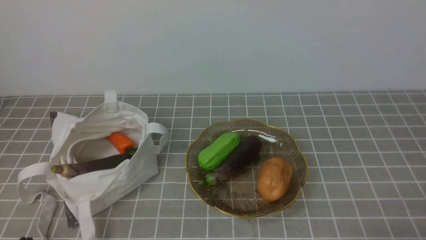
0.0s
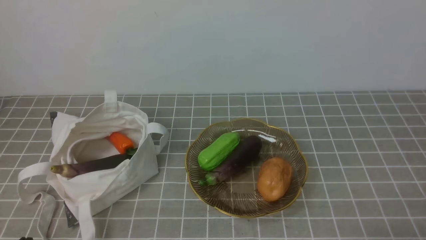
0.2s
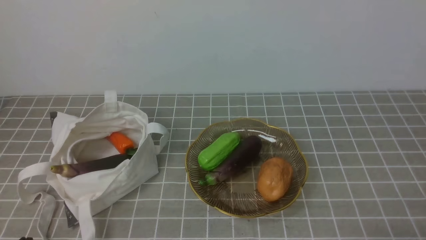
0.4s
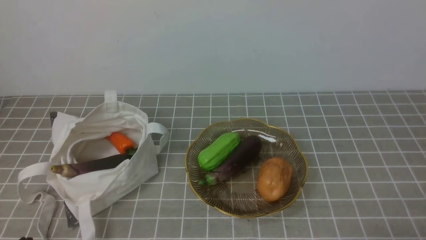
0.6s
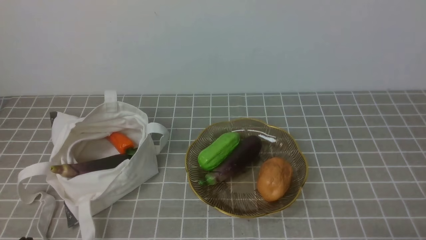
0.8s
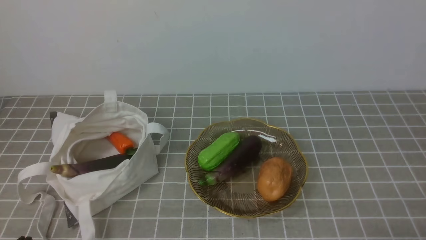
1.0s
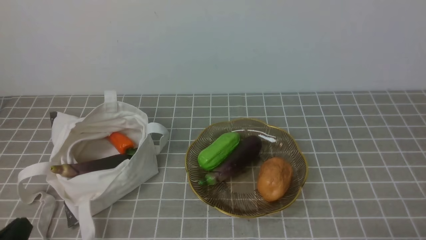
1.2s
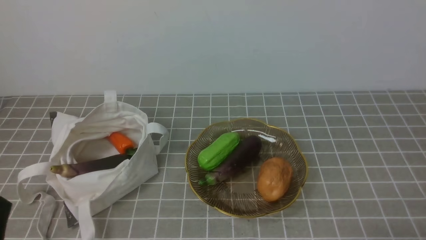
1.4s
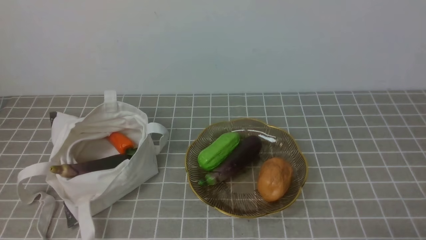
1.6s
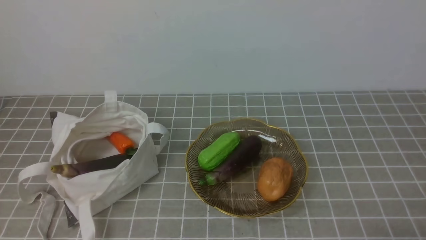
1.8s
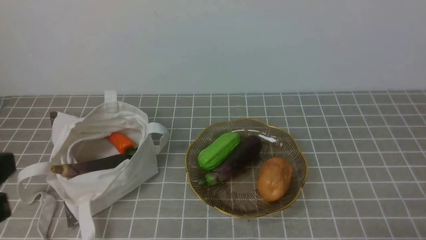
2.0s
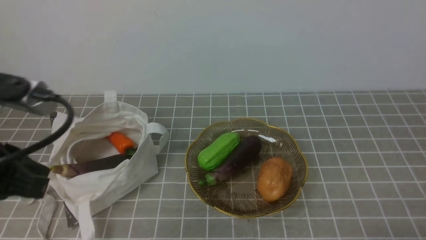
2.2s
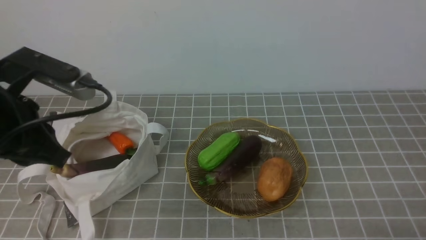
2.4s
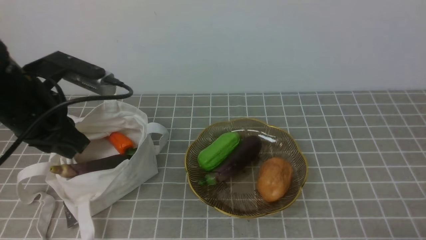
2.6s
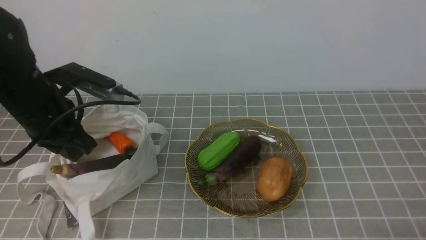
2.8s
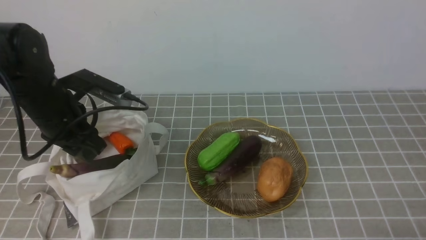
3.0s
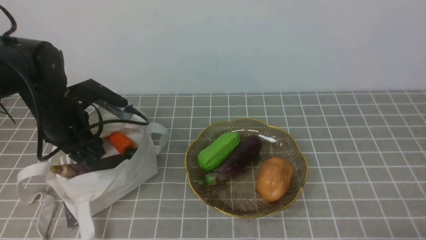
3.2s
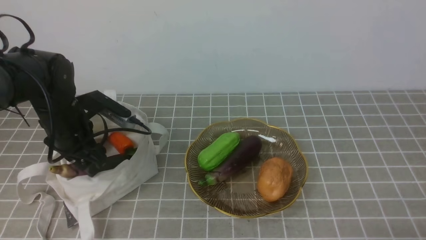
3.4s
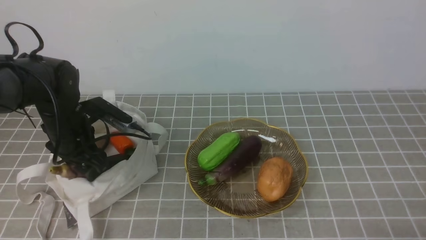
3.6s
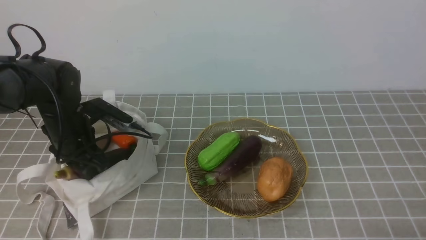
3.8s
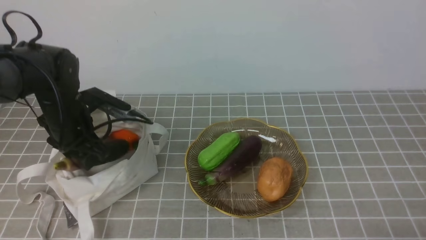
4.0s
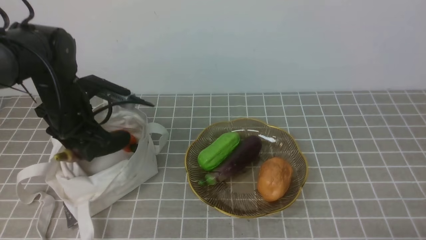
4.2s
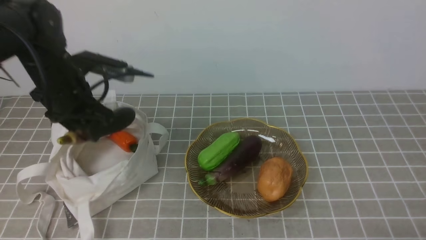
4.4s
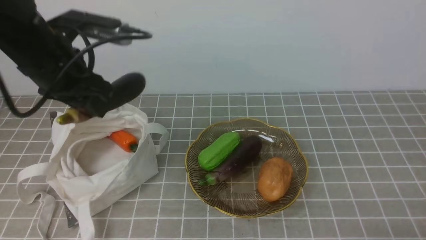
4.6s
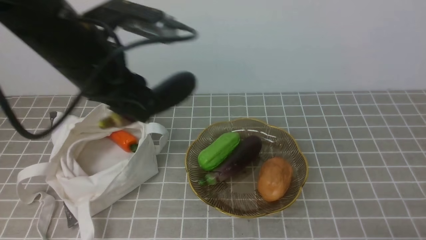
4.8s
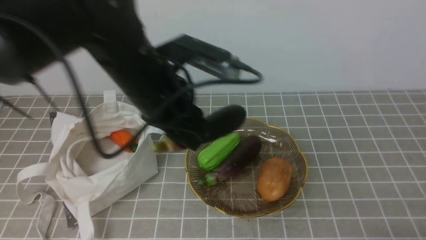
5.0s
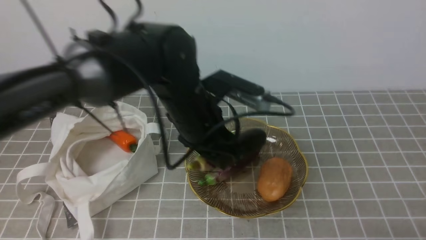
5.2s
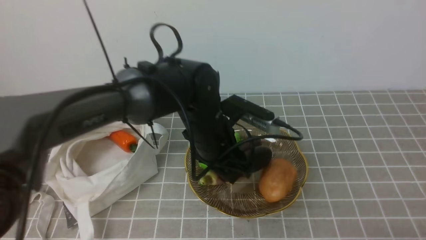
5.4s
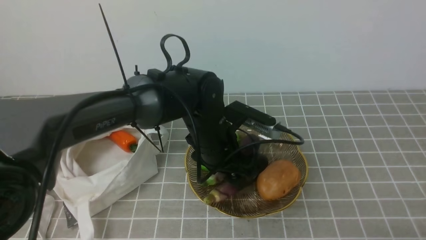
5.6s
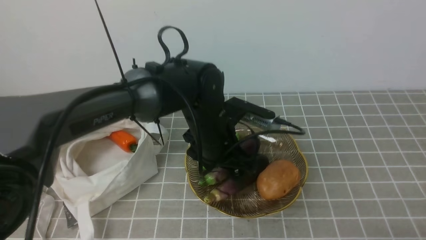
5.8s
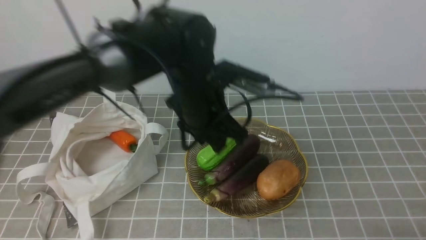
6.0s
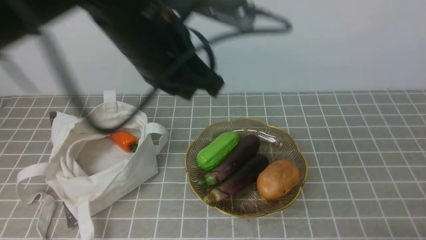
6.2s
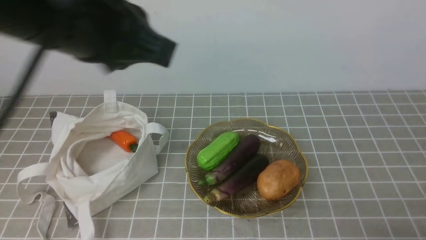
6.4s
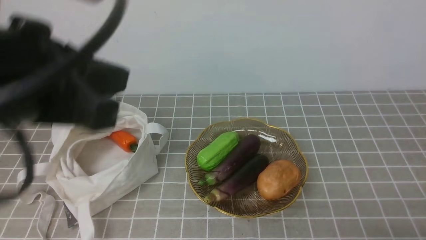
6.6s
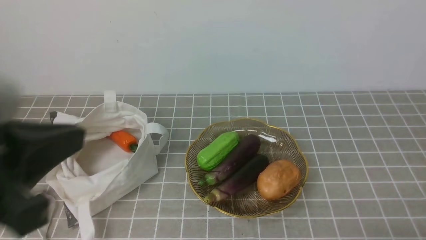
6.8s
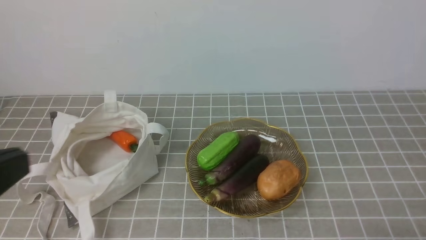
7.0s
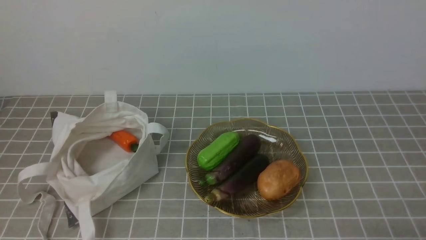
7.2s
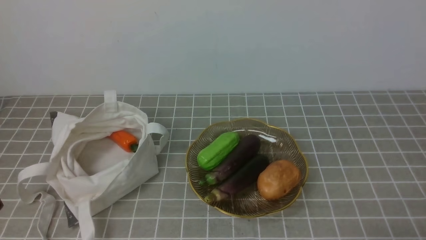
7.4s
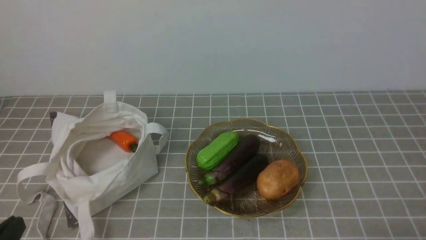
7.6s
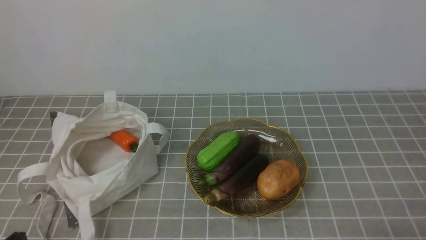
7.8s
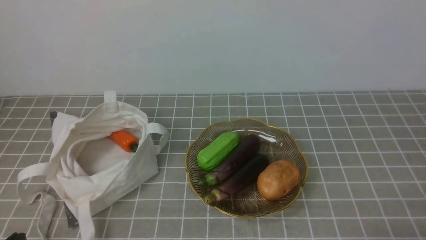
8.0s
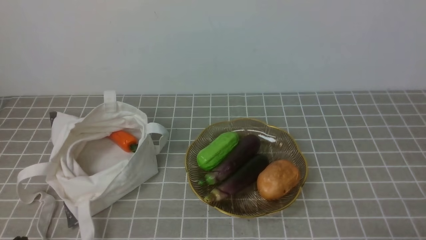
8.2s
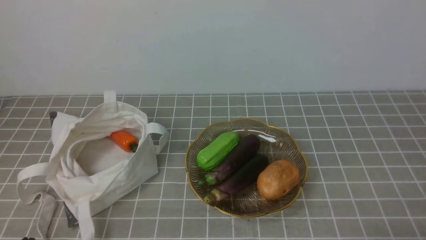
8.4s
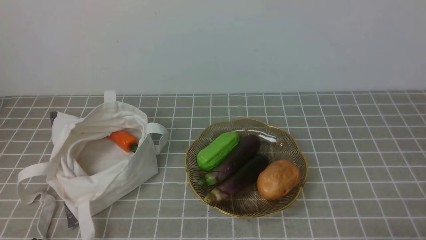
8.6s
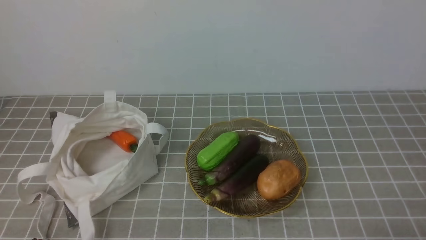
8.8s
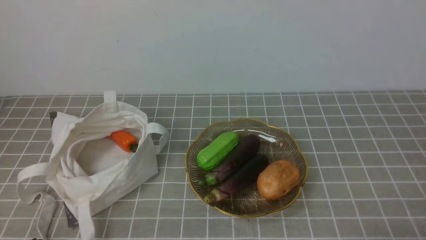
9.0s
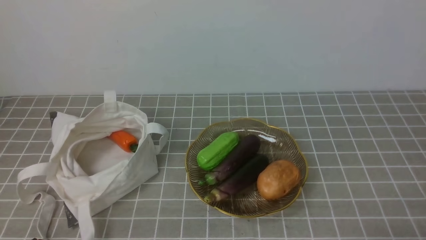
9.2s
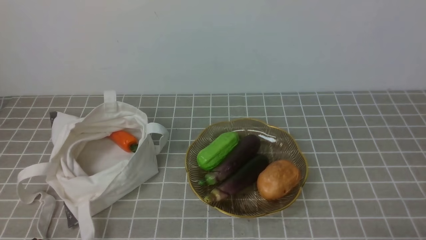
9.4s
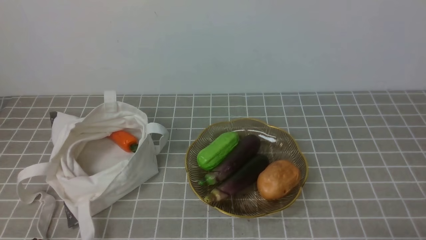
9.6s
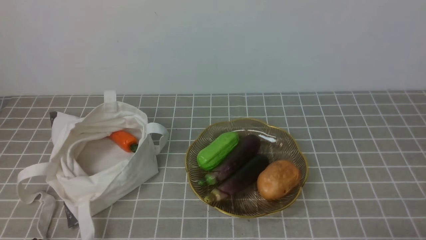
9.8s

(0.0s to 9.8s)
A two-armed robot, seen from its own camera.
Task of the whole recording: take vegetables from bag on grey coffee tablecloth place on plate.
Step, 0.0s - 3.6s: Grasp the eggplant with left gripper.
Step, 4.0s - 6.0s: Place the eggplant on the plate with left gripper.
1.4s - 2.8s: The left gripper is displaced forward by about 25 cm.
2.8s - 4.2s: The left gripper goes about 5 cm forward, and opens.
4.2s - 5.6s: The left gripper is displaced to the right by some 25 cm, and opens up.
5.6s - 7.0s: The left gripper shifts approximately 40 cm backward, to the left and upward, and closes up.
7.0s - 8.4s: The left gripper is displaced downward by roughly 20 cm.
8.4s - 9.8s: The two grippers keep their place.

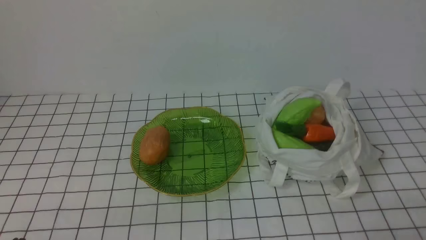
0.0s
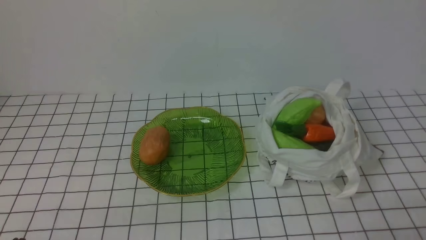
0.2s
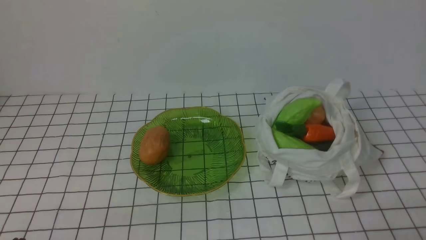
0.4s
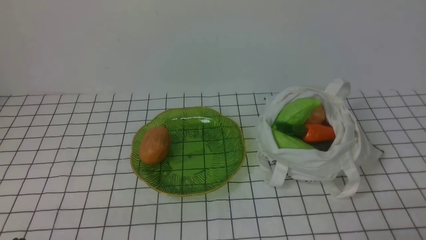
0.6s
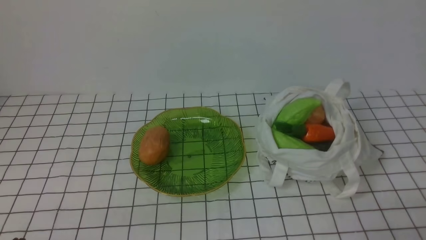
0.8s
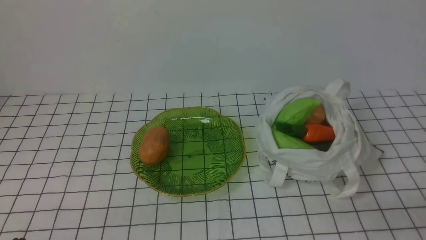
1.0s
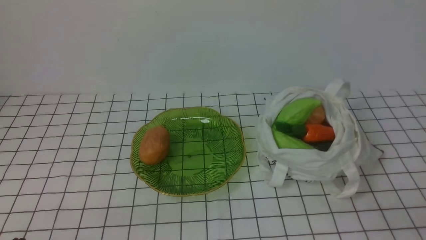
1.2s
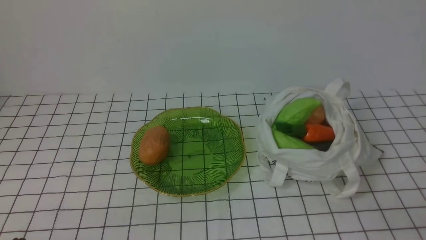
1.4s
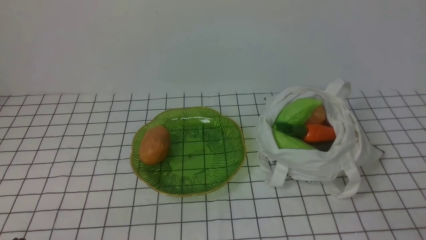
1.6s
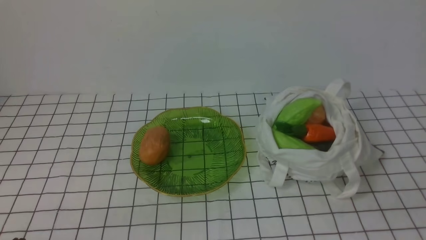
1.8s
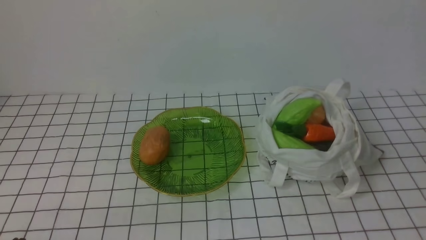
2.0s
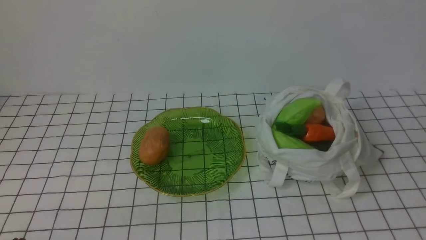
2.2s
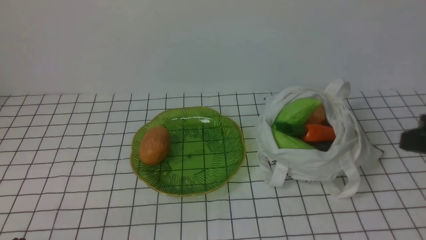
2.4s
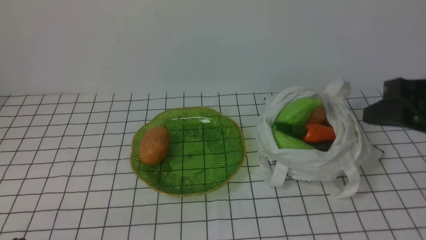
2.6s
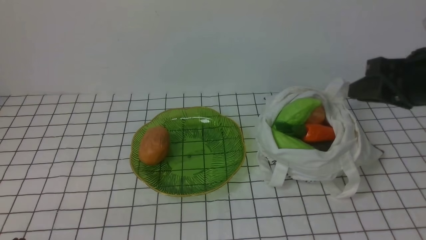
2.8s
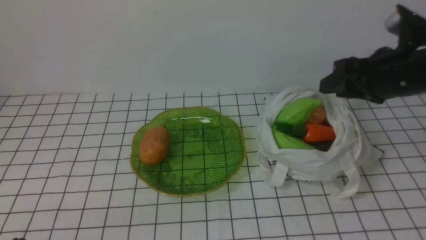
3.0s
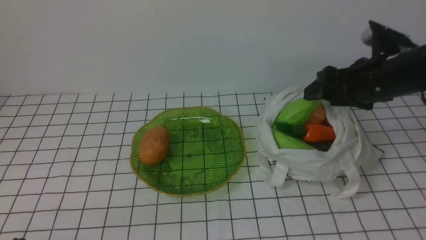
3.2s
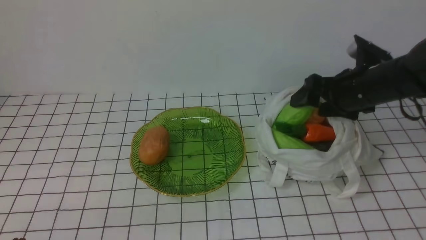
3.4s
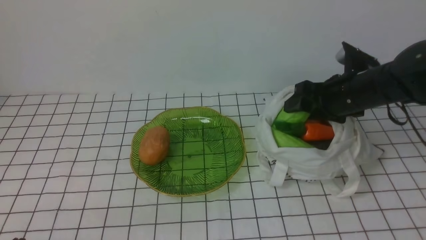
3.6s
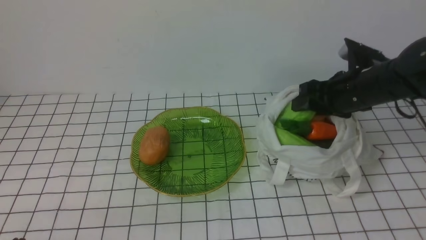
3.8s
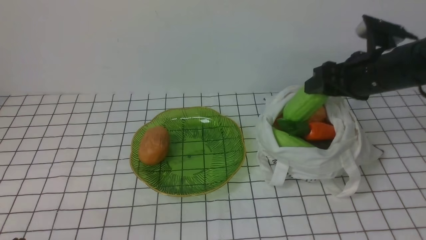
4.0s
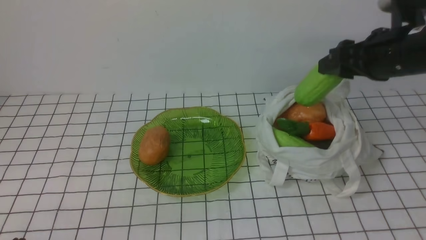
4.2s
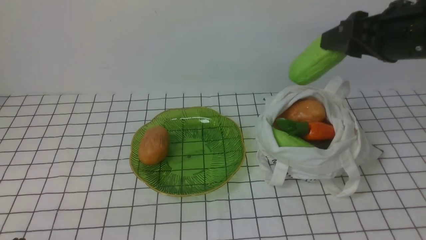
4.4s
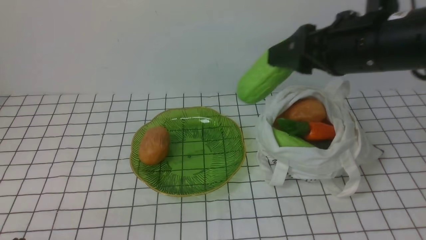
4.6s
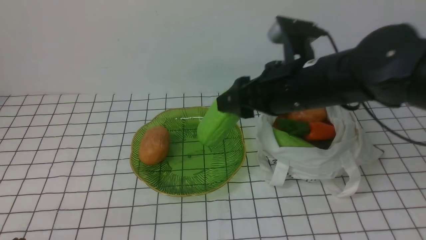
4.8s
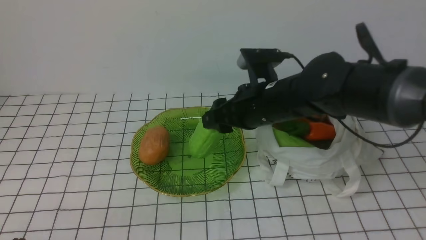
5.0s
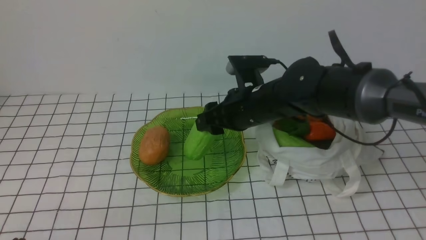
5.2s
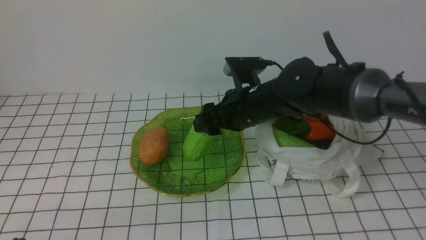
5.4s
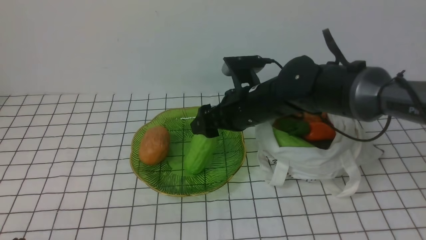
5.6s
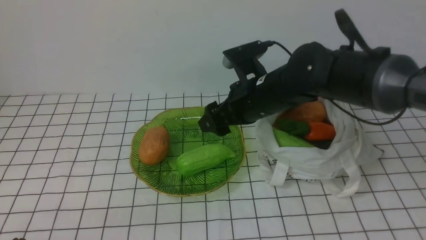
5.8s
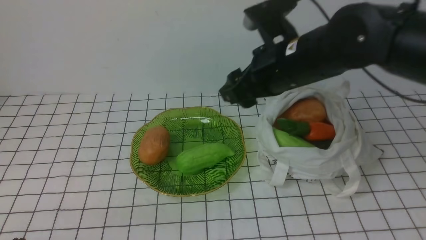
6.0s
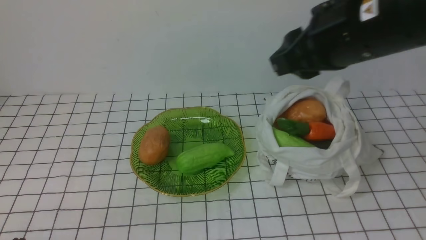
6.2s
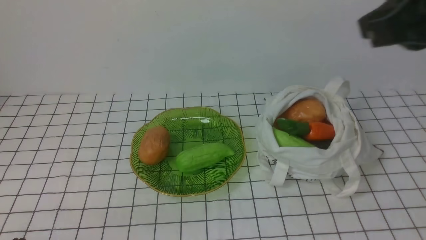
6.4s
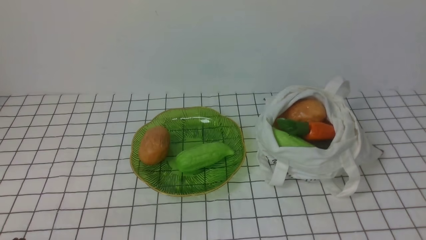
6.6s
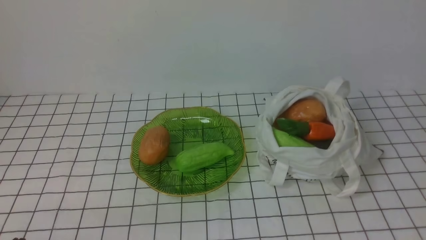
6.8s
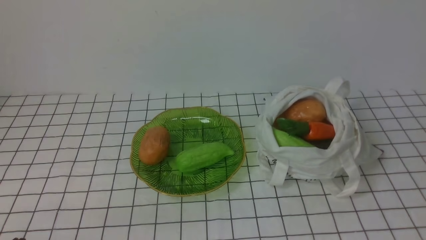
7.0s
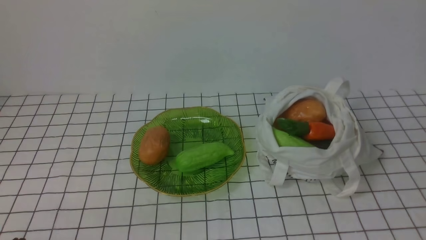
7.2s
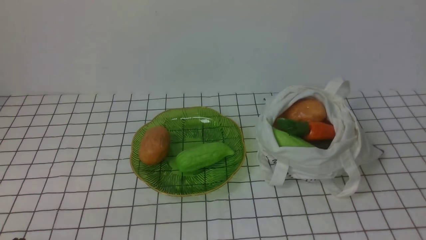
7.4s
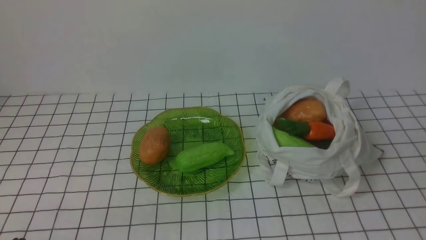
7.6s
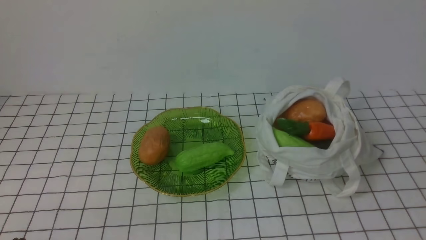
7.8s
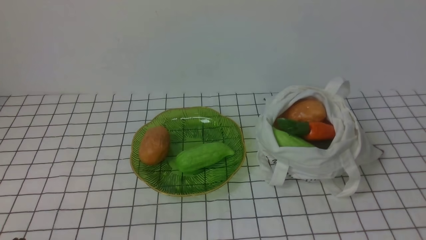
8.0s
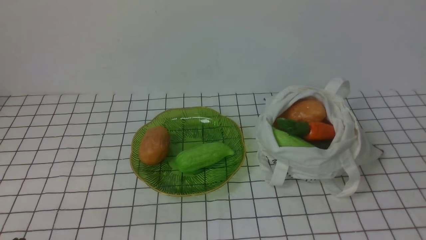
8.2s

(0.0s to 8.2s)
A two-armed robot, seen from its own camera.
Task of the whole recording: take vegetables from bag on white checkered tablecloth place on plate.
Step, 0.0s - 3.6s: Grasp the bitter melon with right gripper.
Step, 3.8s - 5.8s: Place the bitter melon on the plate with right gripper.
1.6s - 3.2s: The right gripper heads forward, covering roughly 30 cm, and opens its fingers.
3.2s - 5.0s: The right gripper is displaced to the left by roughly 15 cm.
5.0s - 6.6s: The right gripper shifts some 35 cm upward, backward and to the right, and closes its fingers.
